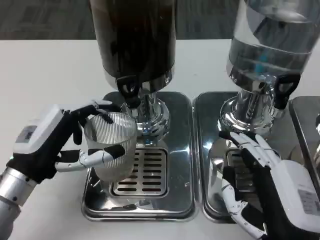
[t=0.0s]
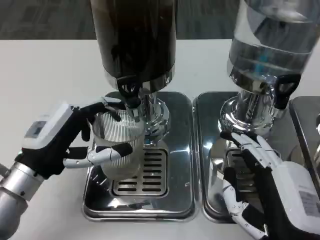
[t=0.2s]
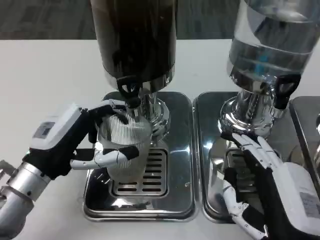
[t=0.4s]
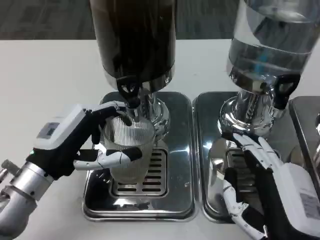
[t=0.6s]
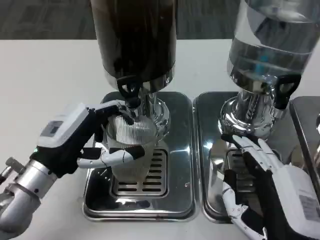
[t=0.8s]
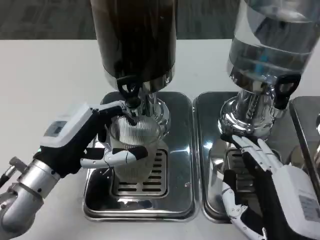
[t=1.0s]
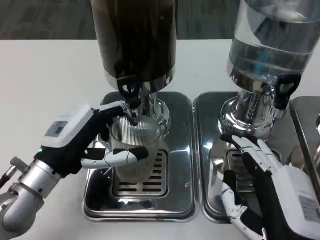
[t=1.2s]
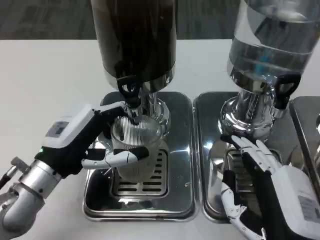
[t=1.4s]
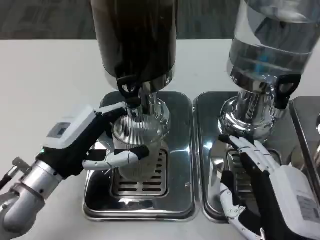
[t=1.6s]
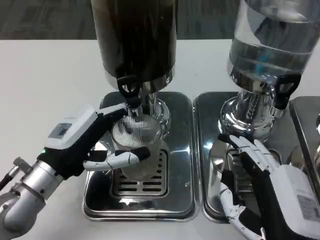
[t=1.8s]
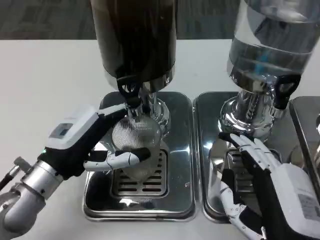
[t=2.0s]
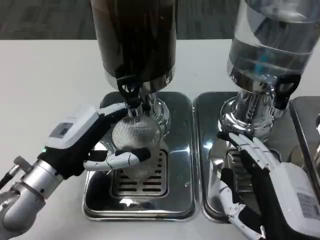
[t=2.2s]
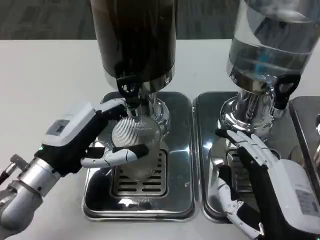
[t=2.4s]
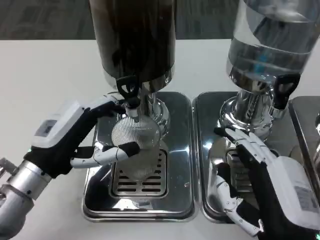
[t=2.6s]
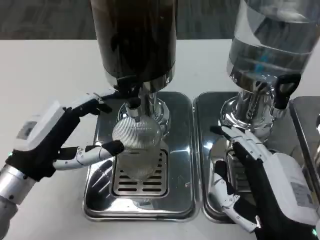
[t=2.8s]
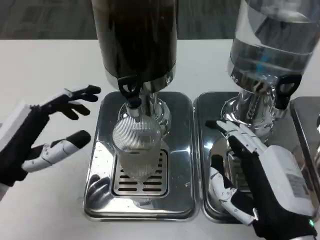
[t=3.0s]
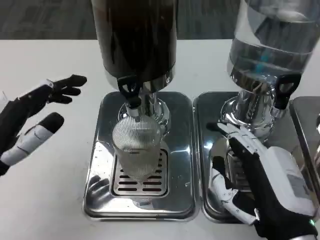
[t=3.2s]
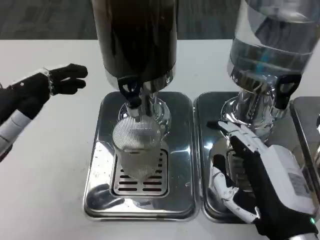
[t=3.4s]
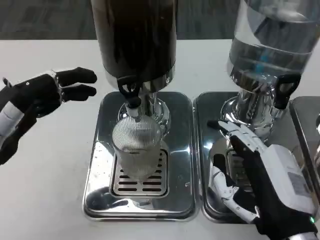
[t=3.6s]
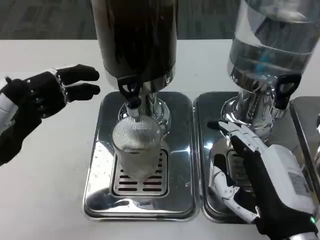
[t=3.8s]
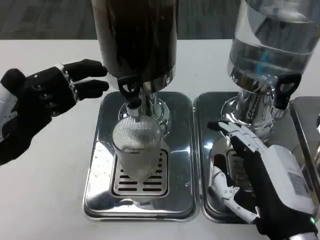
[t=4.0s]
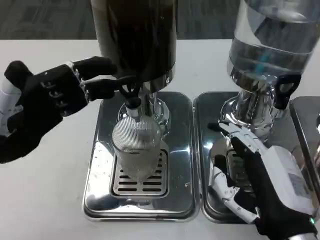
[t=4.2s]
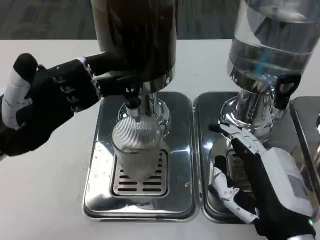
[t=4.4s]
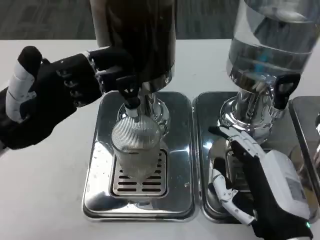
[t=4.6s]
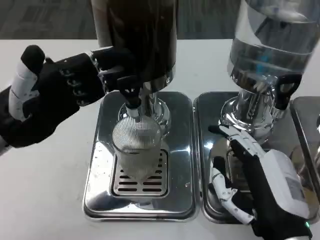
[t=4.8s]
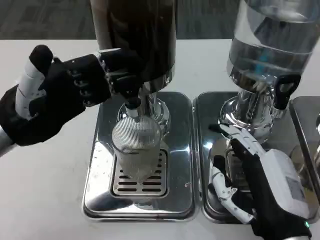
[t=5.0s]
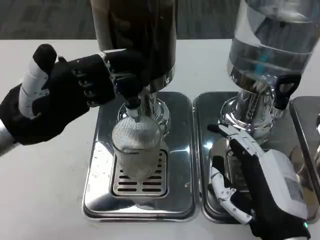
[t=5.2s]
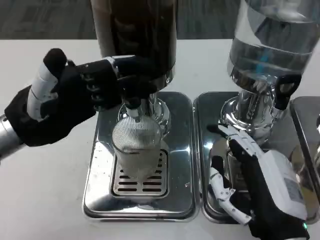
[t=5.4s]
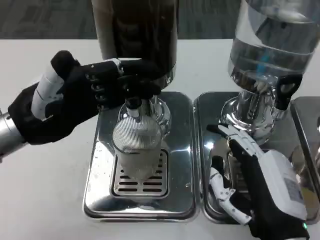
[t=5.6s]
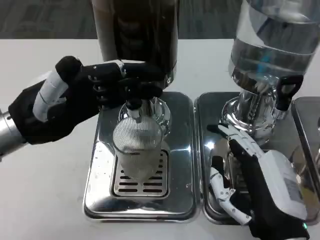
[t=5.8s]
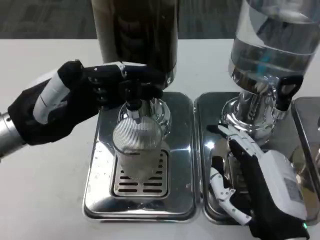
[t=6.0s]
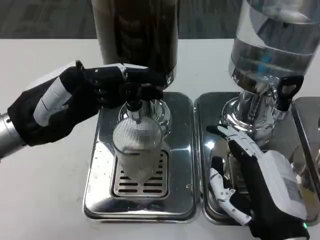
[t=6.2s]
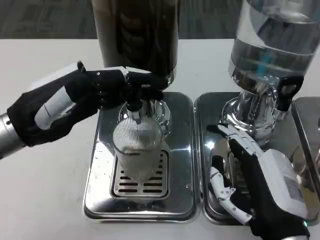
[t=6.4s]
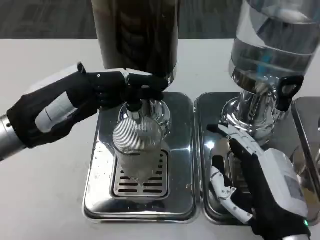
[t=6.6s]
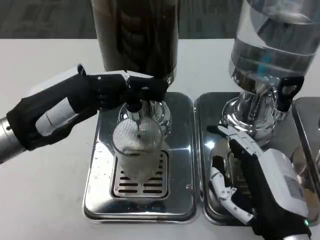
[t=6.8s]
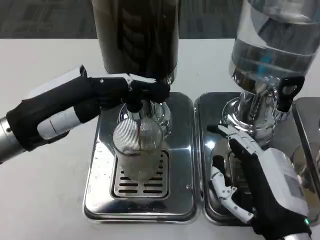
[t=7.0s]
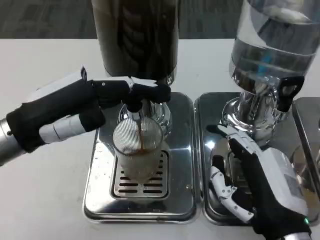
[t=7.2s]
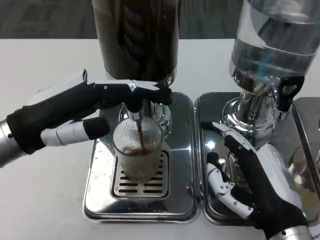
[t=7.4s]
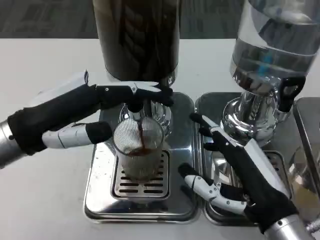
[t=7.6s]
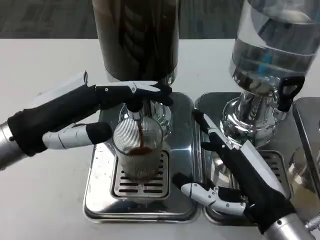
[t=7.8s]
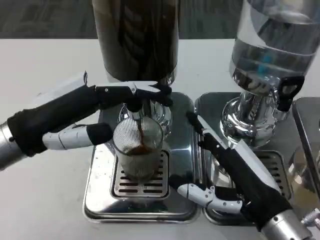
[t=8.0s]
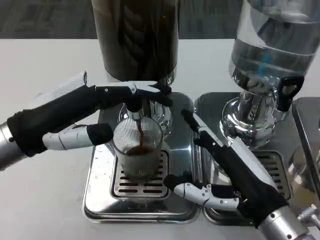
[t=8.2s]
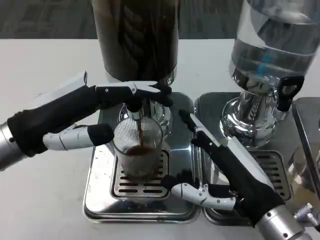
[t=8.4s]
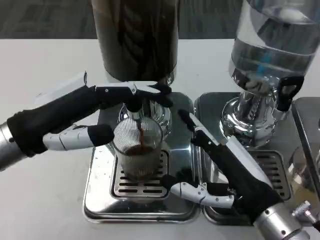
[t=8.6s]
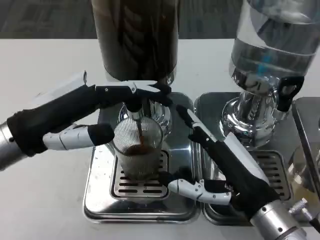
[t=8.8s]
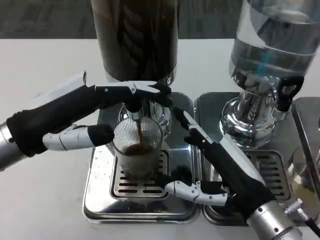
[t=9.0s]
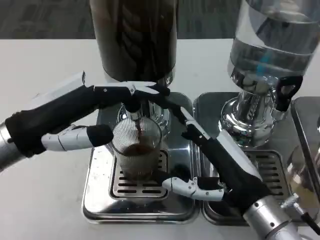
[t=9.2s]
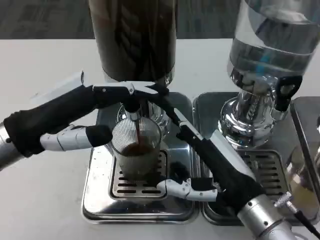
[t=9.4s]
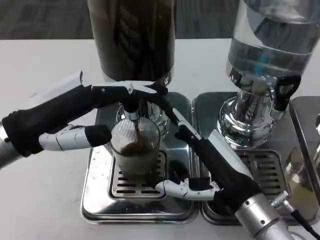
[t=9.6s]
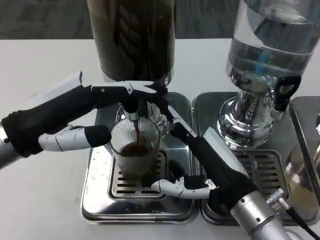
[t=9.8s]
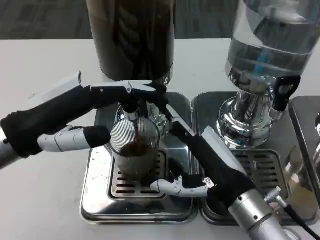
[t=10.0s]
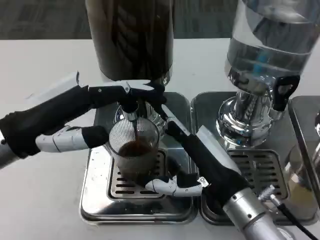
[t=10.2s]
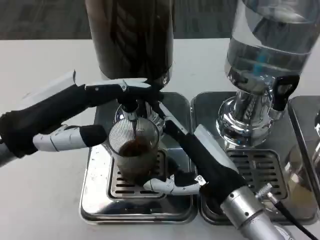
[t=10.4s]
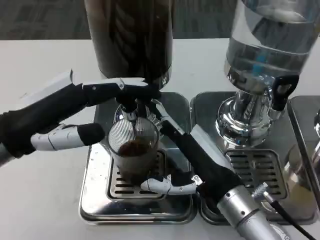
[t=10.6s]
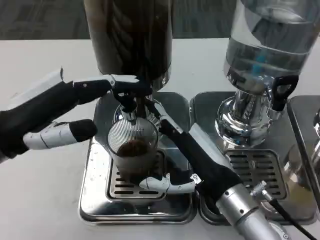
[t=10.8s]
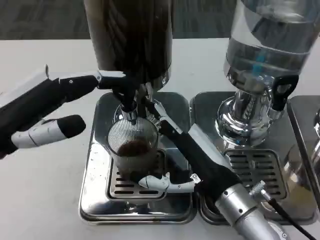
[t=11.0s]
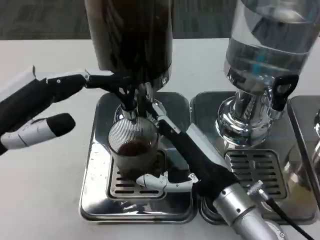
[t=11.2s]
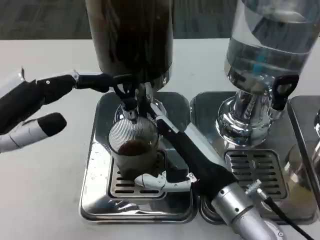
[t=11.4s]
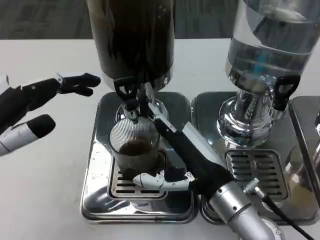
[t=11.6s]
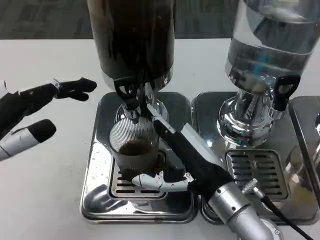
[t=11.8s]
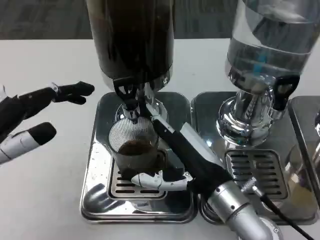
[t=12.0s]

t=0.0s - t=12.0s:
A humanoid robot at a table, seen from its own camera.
Task of the whole recording: Grasp the cup under the faucet to collect the drink, then remove the cup.
t=1.6s - t=3.0s: The left hand heads to the left, covering roughly 5 cm.
t=3.0s - t=4.4s: The left hand goes some 5 cm upward.
t=7.6s - t=9.0s: There are only small adjustments of the hands.
t=10.4s - t=12.0s: The left hand ends up approximately 5 cm from where it was.

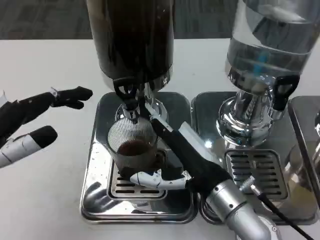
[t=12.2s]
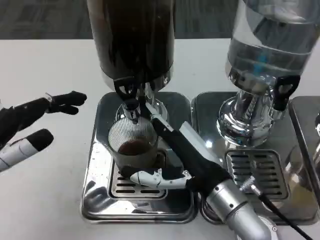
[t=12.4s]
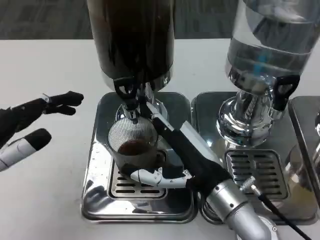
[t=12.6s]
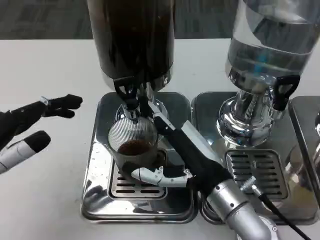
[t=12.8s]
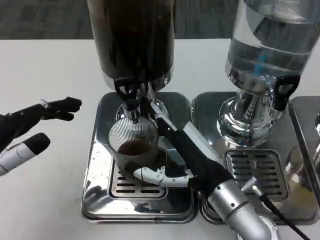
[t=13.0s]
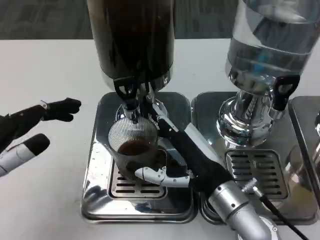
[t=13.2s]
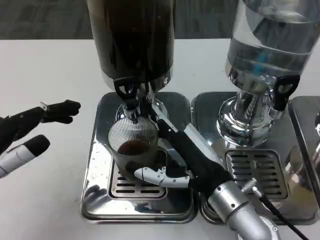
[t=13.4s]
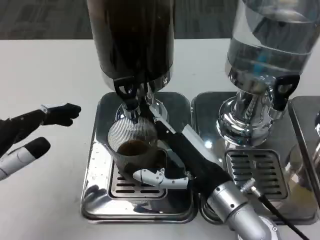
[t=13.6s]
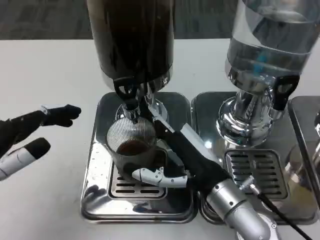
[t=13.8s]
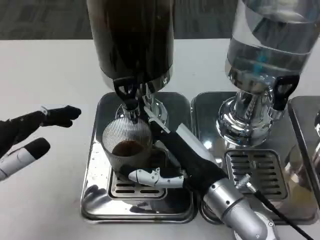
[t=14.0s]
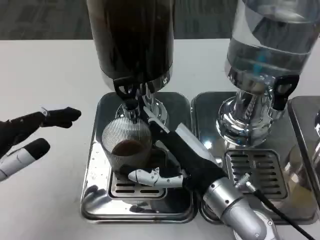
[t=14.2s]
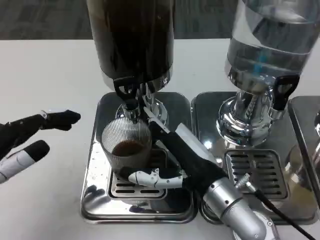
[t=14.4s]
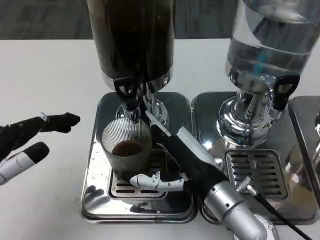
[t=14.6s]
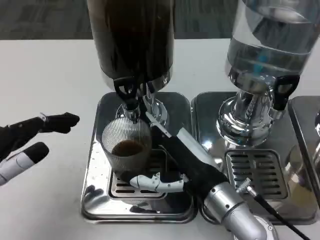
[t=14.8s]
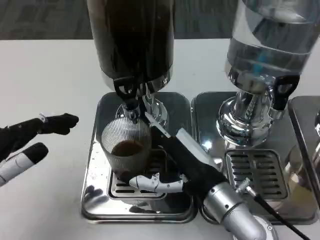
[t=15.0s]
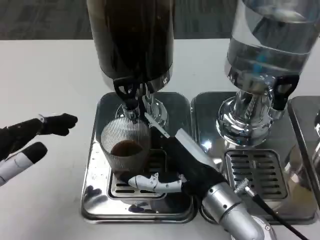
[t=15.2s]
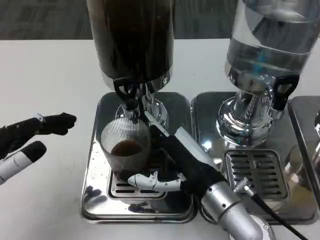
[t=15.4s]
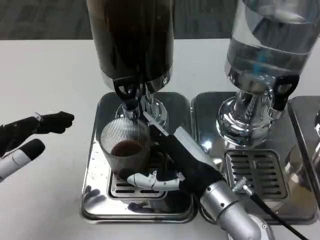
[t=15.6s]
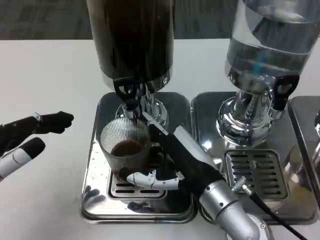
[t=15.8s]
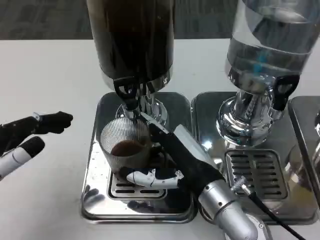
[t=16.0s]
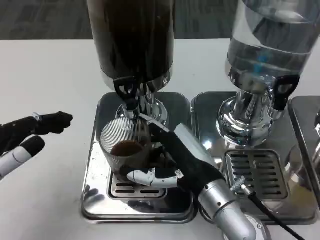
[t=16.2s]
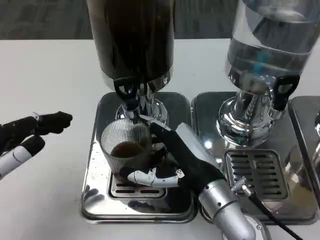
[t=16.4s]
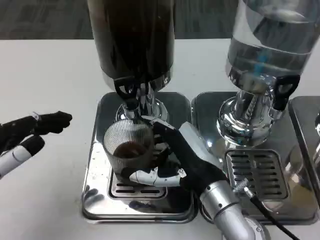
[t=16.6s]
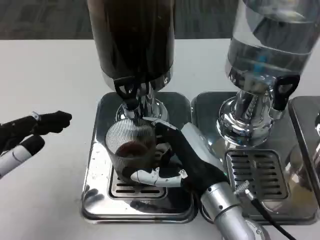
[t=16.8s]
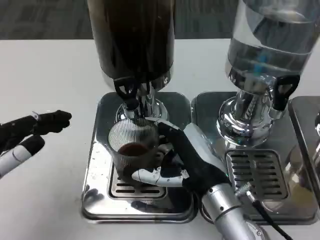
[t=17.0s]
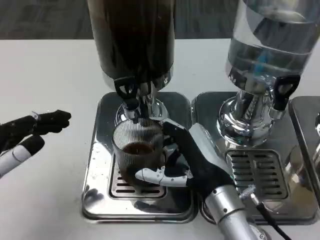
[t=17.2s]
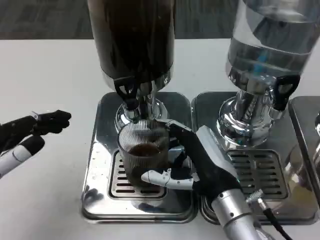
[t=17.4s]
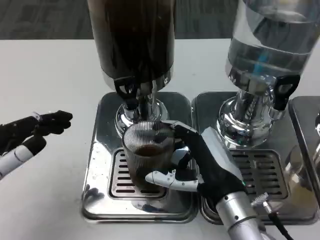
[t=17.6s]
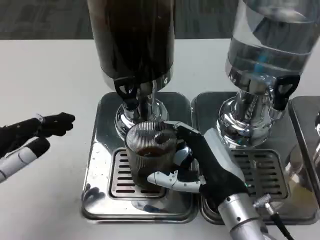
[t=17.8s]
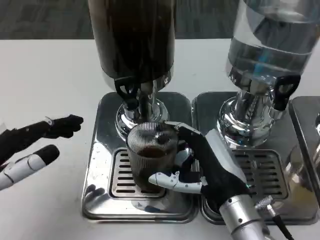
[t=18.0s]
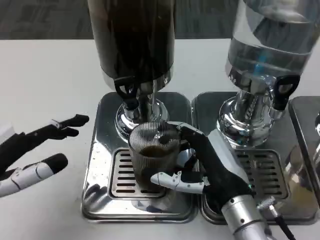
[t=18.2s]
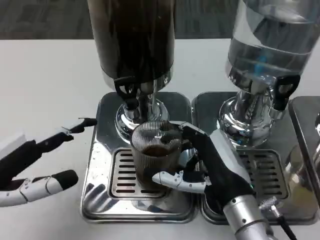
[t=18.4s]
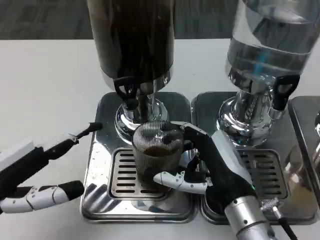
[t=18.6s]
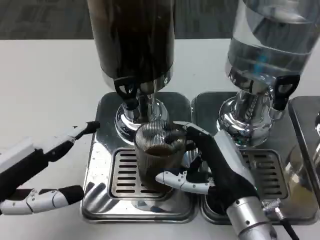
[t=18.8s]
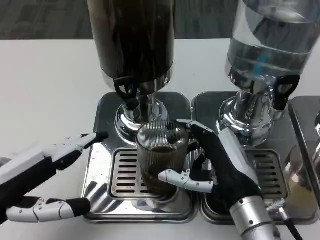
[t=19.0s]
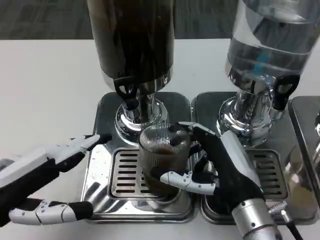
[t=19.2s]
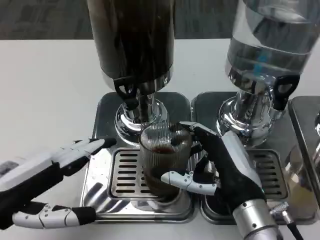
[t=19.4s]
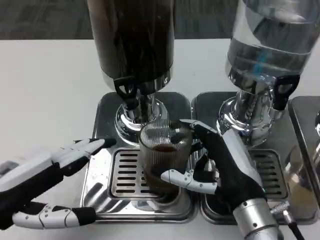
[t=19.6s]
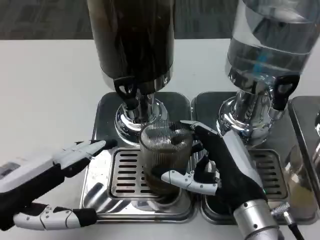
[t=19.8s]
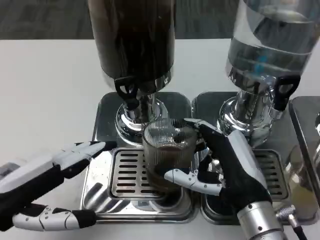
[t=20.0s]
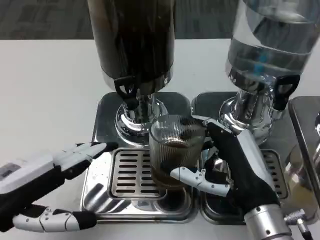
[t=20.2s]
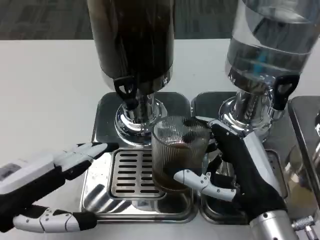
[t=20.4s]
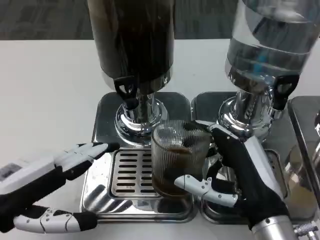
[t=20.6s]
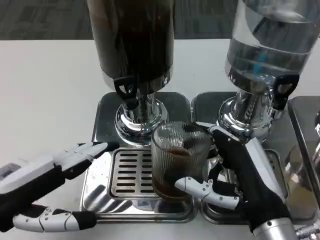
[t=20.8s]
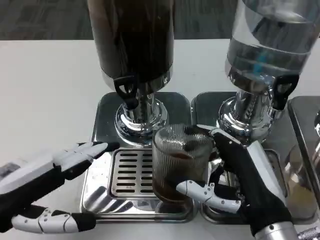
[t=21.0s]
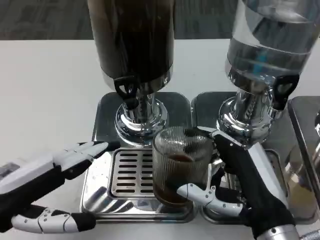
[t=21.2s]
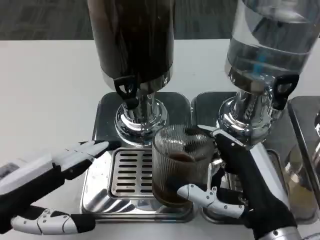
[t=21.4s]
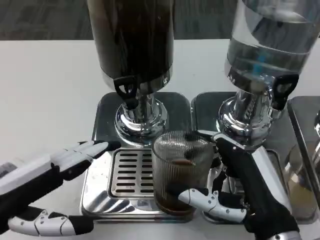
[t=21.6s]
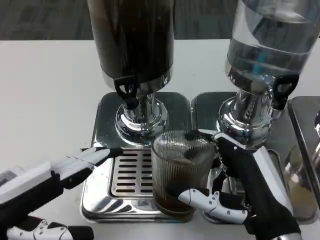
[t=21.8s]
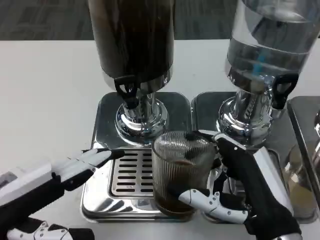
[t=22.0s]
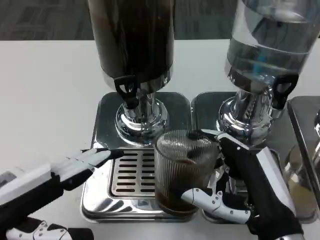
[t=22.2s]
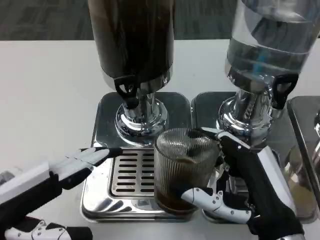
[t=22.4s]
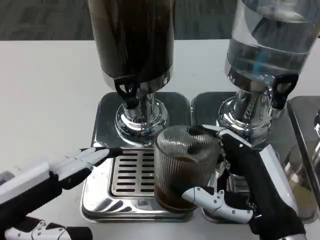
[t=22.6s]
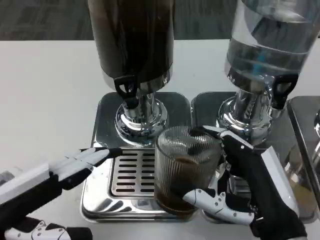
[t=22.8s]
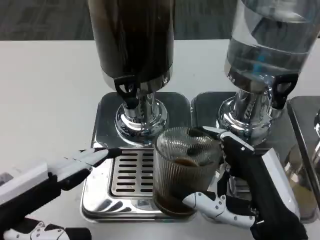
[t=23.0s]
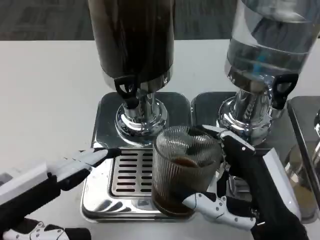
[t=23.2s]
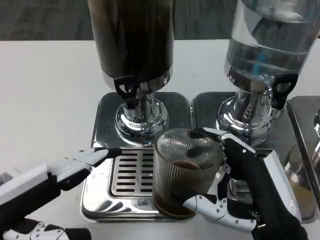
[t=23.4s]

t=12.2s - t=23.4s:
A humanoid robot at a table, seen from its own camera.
Task of the whole recording: Grasp the cup under the faucet to collect the drink, then remove the cup.
t=12.2s - t=13.8s: The hands move only a little.
t=13.8s - t=15.4s: Both hands stay about where they are.
t=15.4s - t=17.0s: There are only small adjustments of the hands.
t=21.8s - t=23.4s: The hands move only a little.
